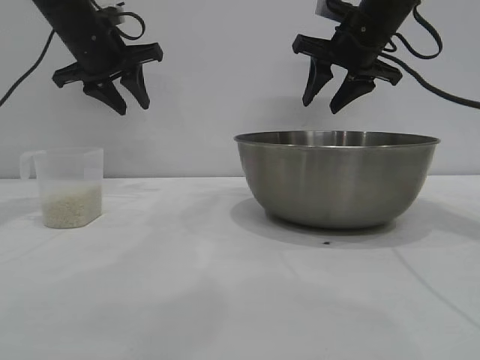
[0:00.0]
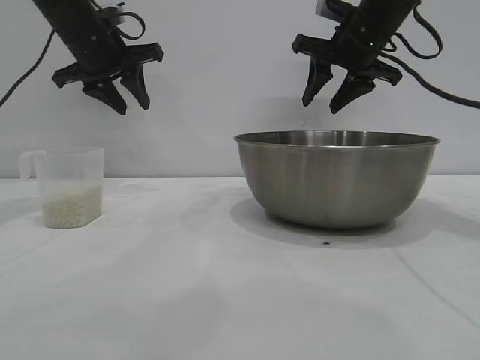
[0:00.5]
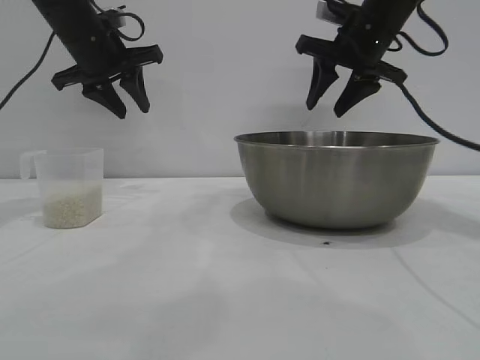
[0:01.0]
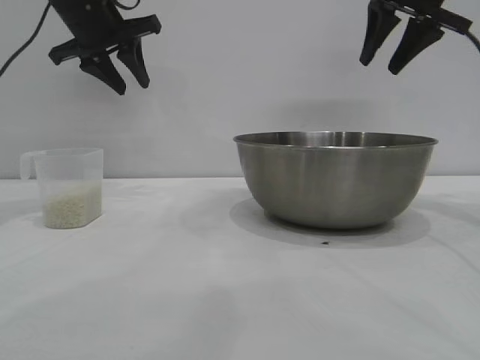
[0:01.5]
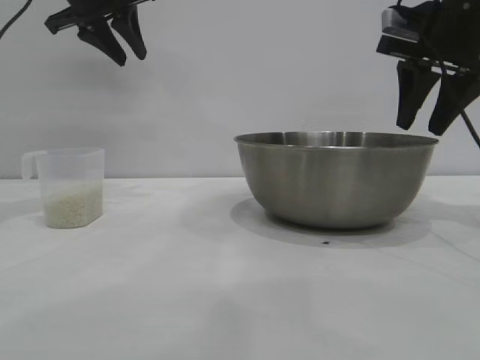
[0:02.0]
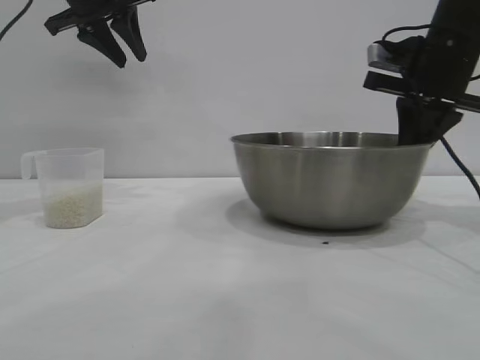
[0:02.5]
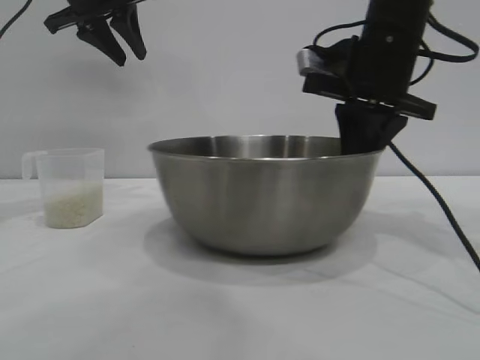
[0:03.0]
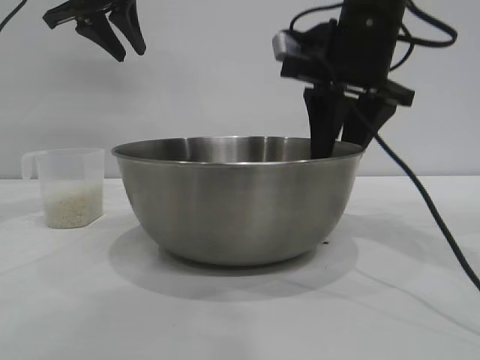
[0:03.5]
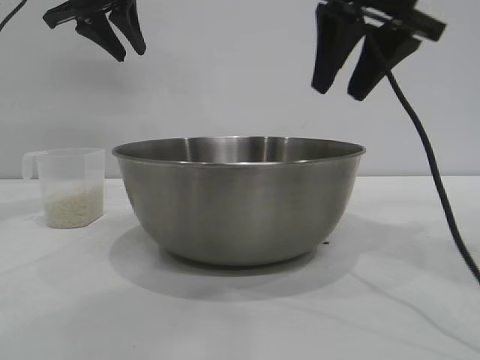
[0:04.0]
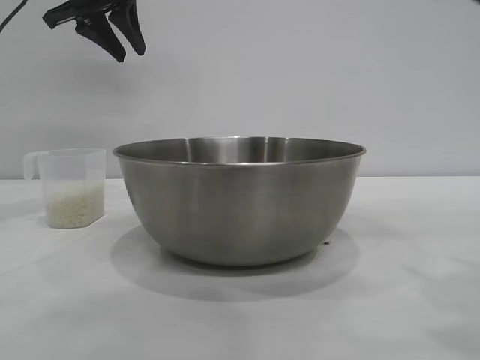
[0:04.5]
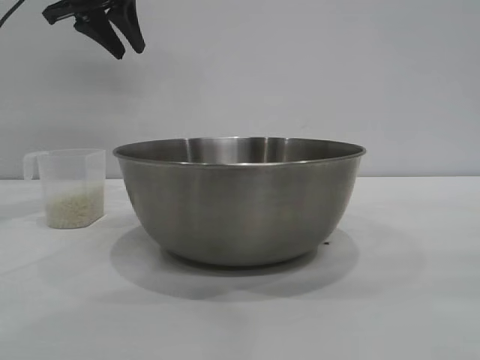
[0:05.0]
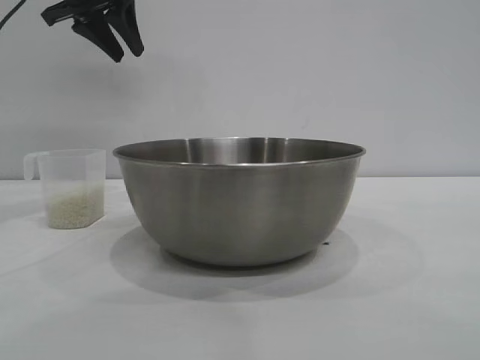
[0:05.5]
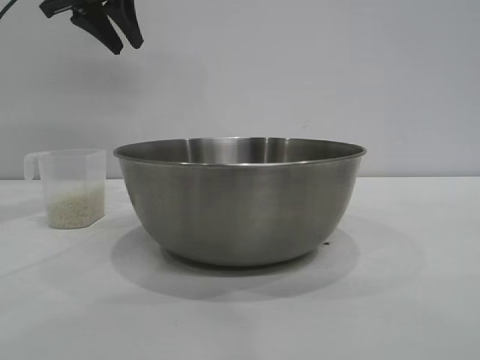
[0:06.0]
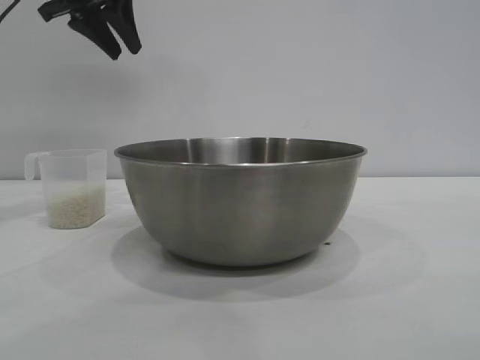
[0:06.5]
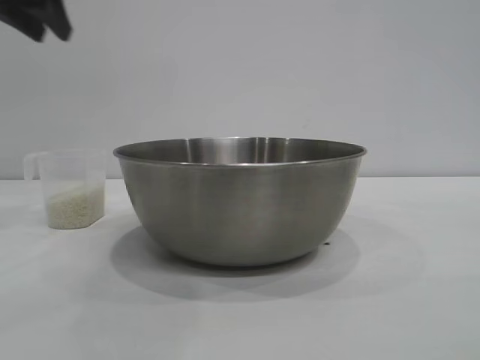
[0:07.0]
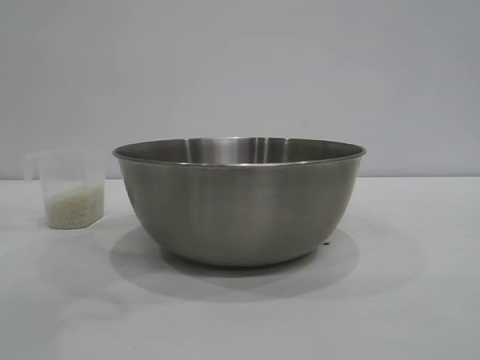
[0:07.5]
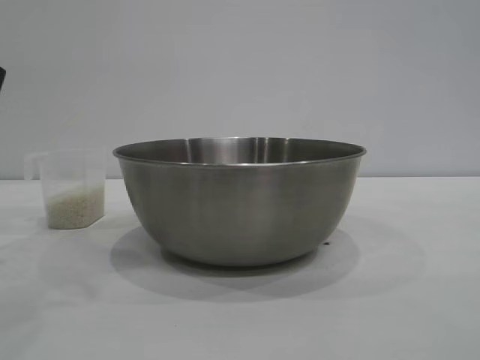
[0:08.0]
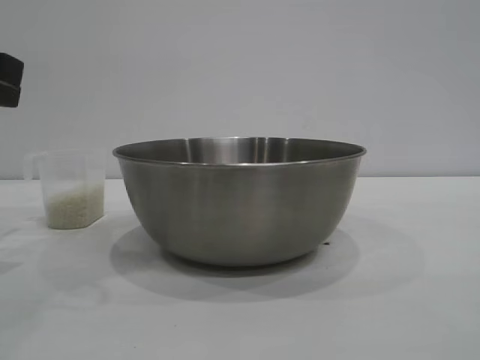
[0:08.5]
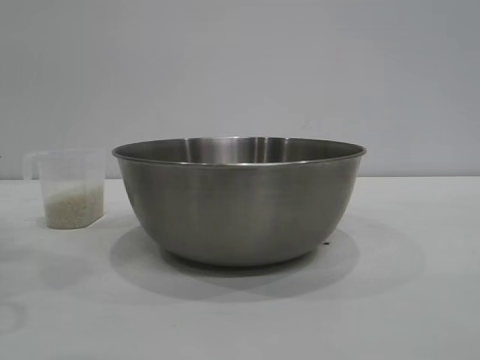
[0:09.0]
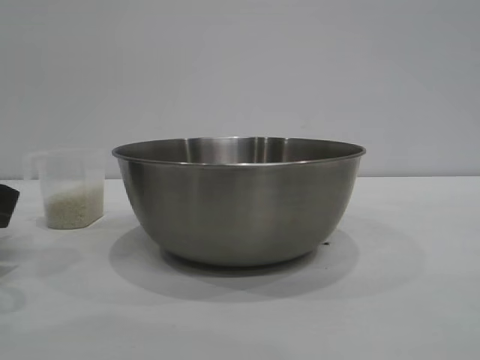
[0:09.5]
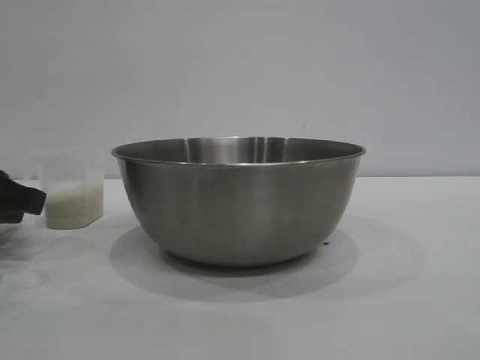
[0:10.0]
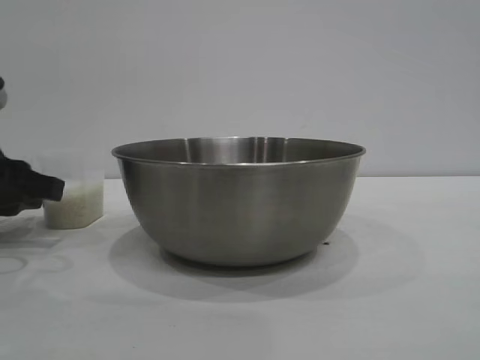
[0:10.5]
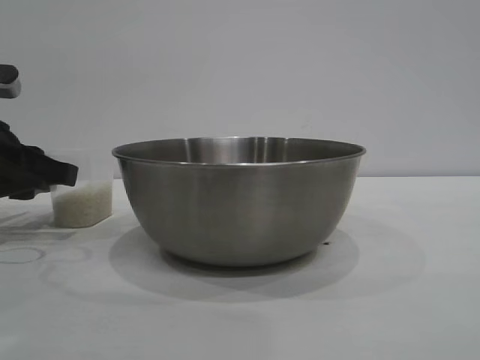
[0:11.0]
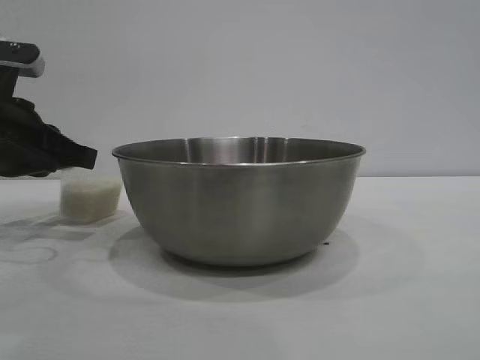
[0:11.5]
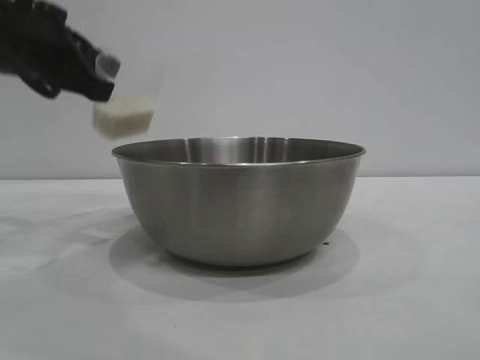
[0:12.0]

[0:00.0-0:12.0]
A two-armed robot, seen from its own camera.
Task of the whole recording: the right gripper grasp the rice container and place it in the center of the table, the left gripper grasp the rice scoop and pour the rice into the rice container.
Step, 0:00.0 to 0:03.5: Move the bowl to the center of view with the right gripper.
Step, 0:04.0 to 0:11.5: Pick up the cup with rice in it with the left gripper.

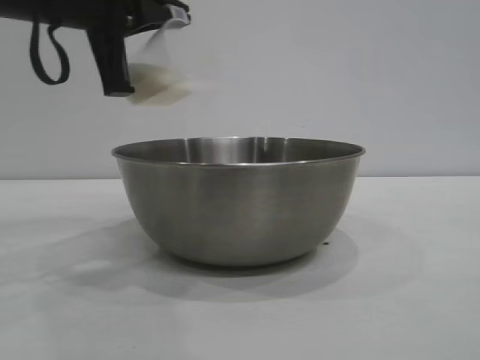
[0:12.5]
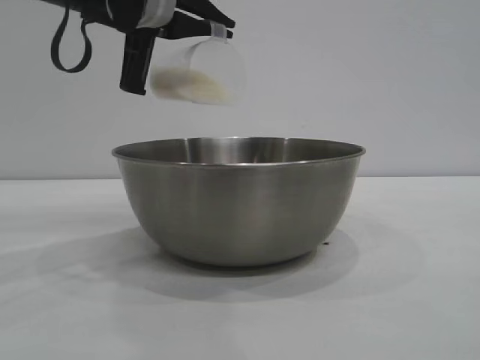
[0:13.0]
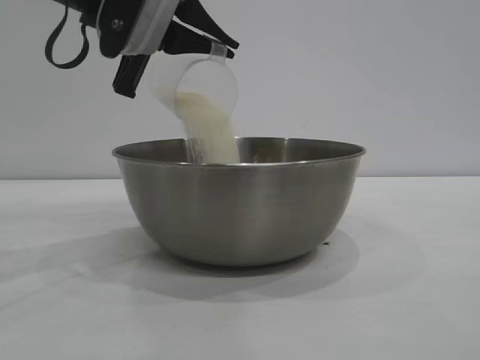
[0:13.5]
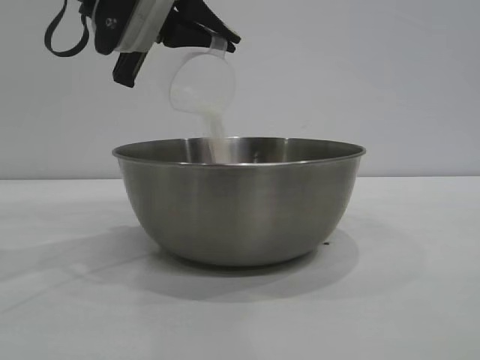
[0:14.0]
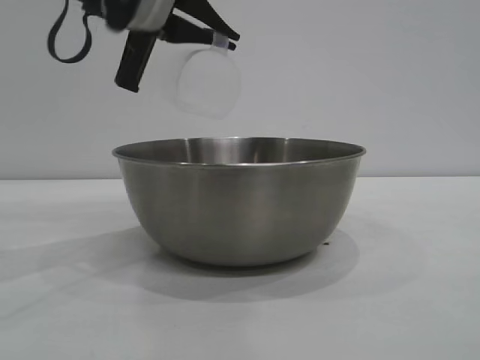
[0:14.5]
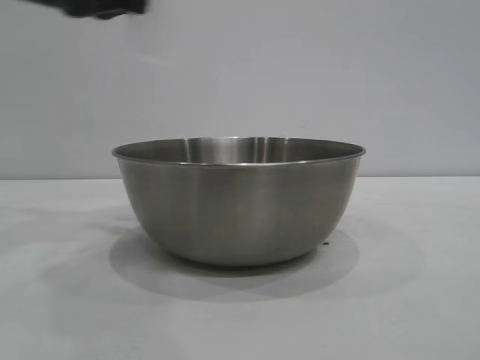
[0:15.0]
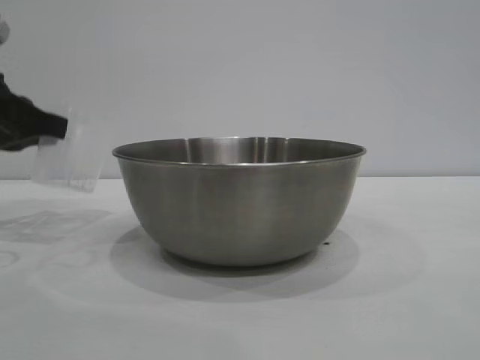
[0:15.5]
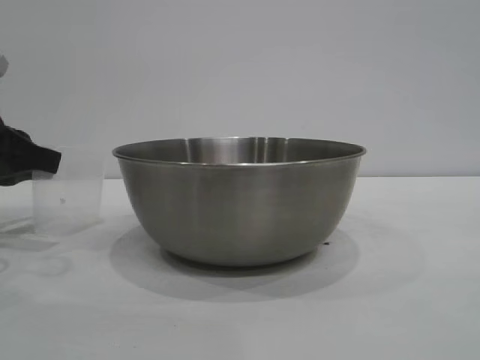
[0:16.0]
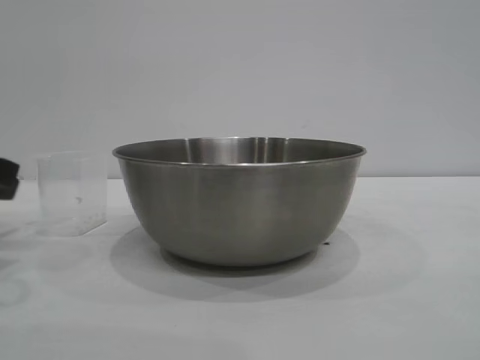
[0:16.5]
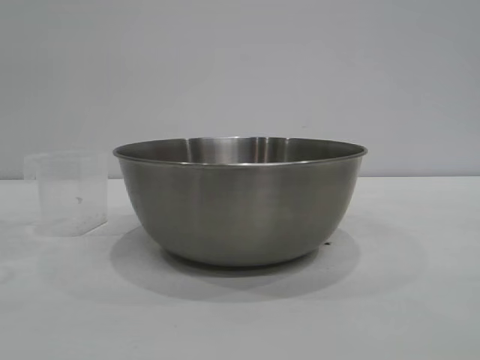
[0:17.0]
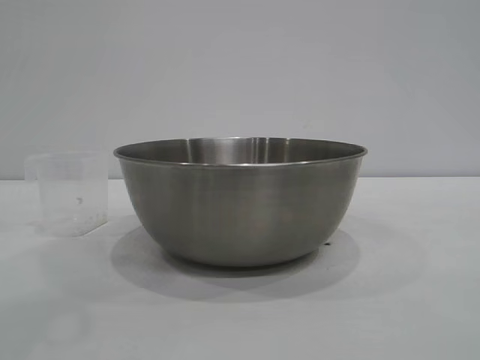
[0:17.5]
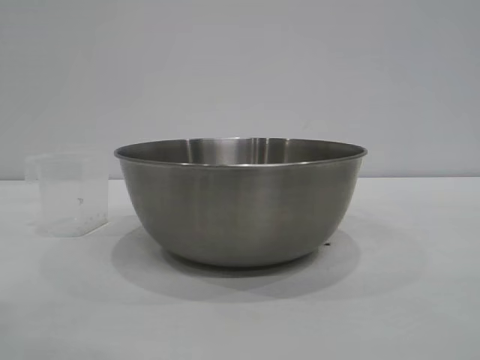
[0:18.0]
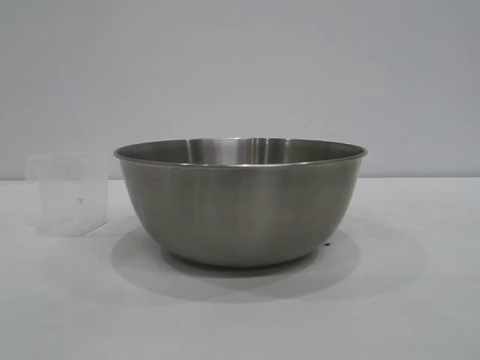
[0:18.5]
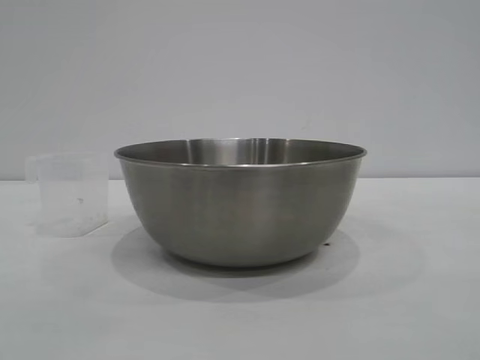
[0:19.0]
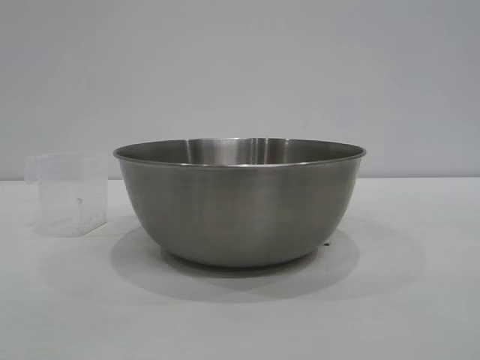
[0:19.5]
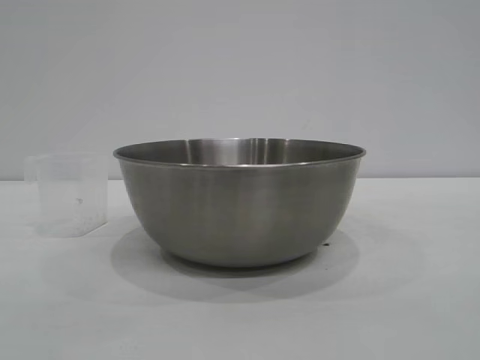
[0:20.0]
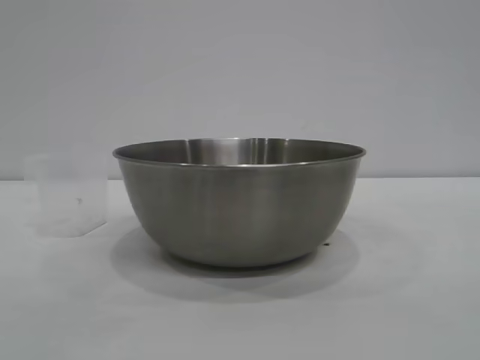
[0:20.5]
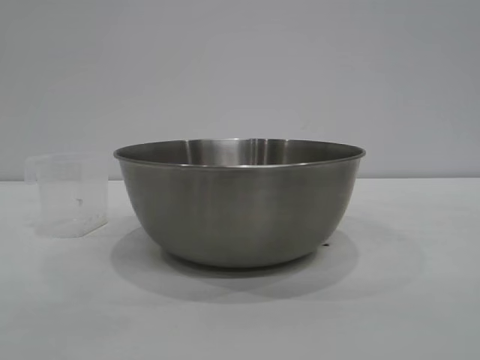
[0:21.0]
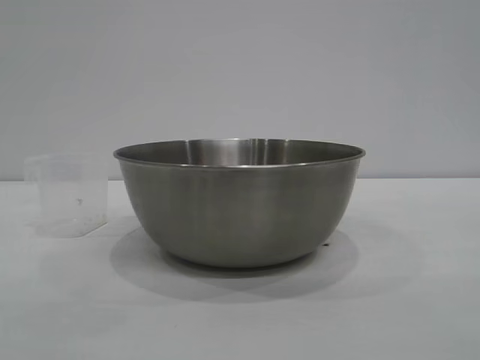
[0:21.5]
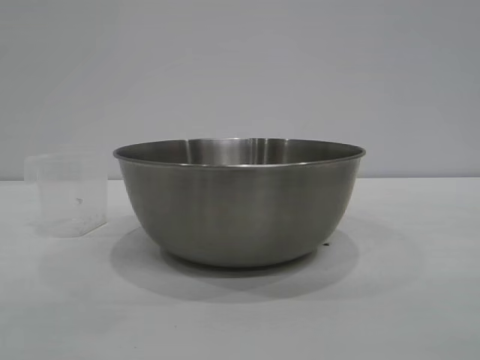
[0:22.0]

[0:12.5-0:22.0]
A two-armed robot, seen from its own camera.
Task of the whole recording: the right gripper grasp the rice container and place it in the center of the table, the left gripper grasp the rice scoop and pour the rice into the rice container.
Step, 0:12.5 to 0:14.0: Pour the rice from the cup into the bowl with the left gripper.
Step, 0:14.5 to 0:16.5: Place the cup on the table with the left gripper.

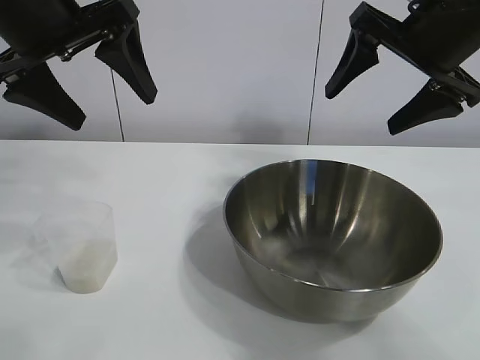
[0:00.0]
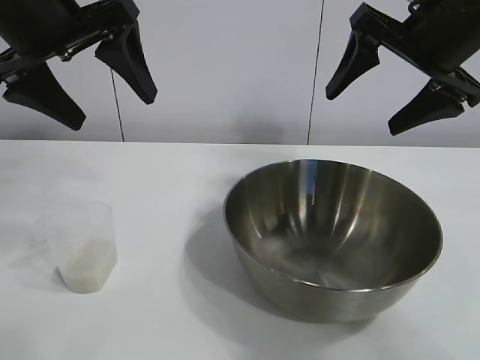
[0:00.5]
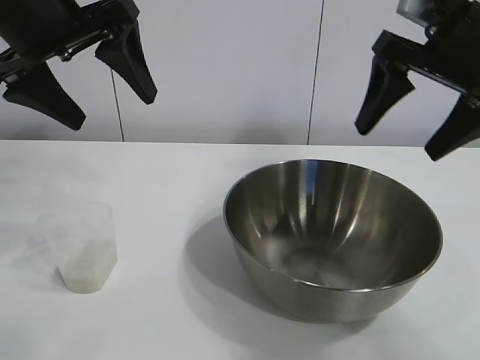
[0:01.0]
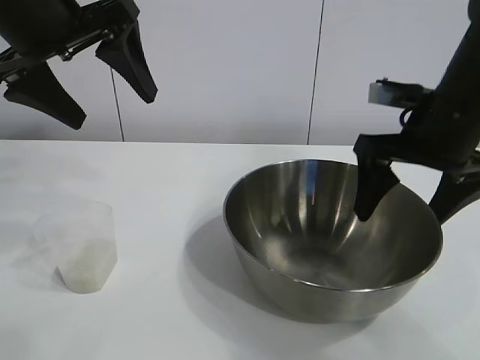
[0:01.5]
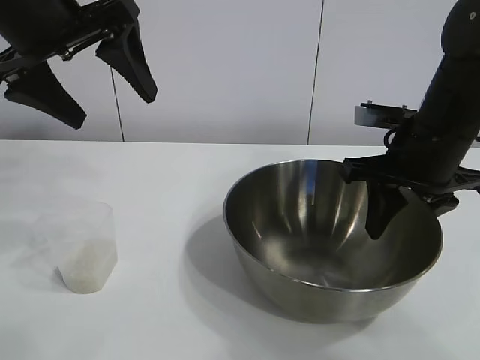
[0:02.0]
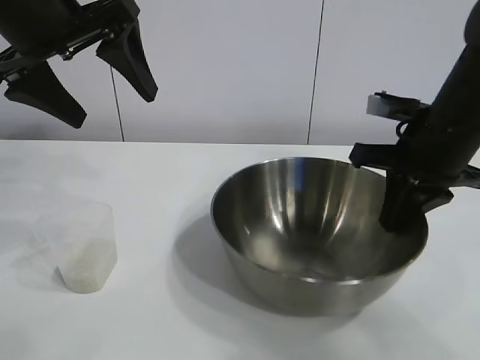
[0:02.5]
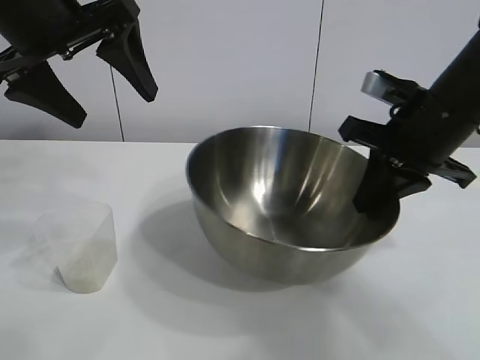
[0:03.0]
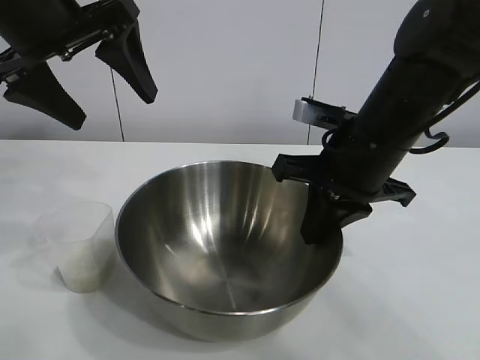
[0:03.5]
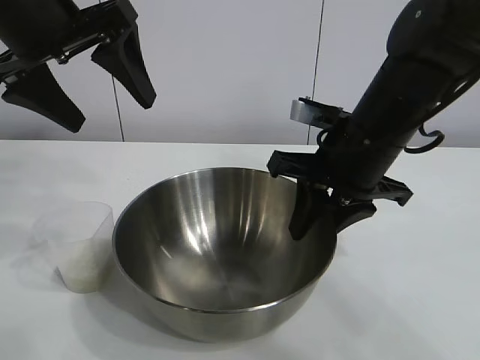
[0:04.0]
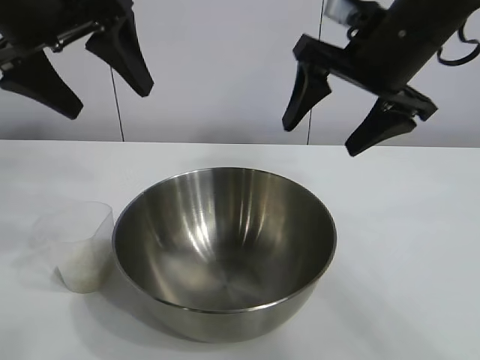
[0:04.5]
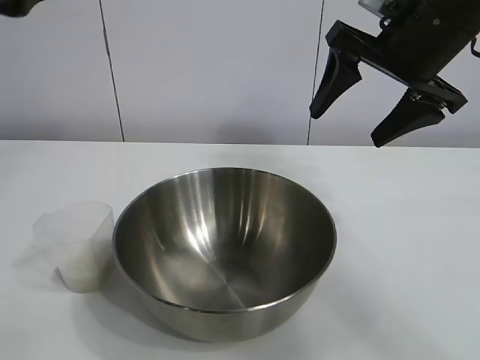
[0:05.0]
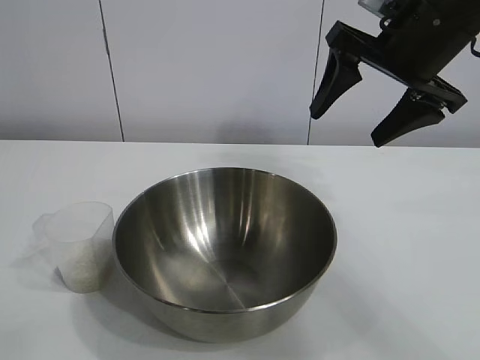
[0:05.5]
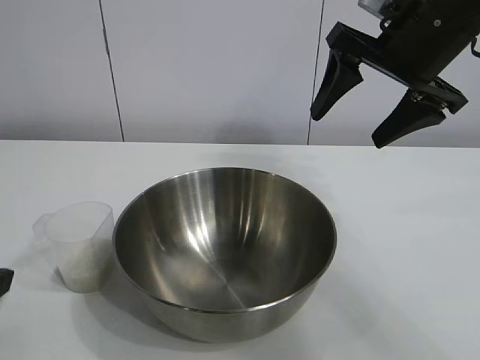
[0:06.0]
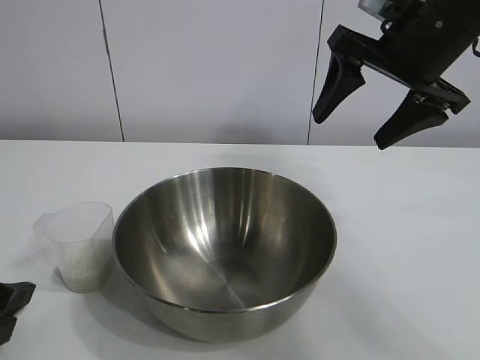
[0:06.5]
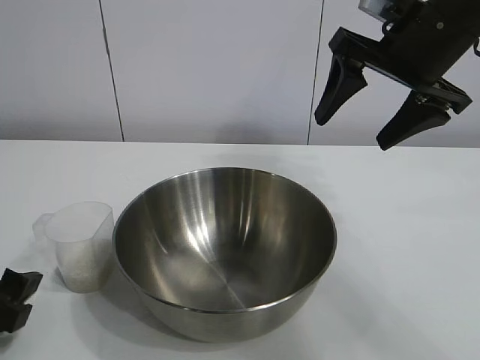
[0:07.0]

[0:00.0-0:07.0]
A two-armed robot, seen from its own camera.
Task of the whole recording: the right gripper grasp the rice container and place it in the center of the table, the left gripper grasp the rice scoop and pour the rice into the rice container.
Step, 0:01.0 to 0:04.0: Move the bowl in the center of view with right gripper.
